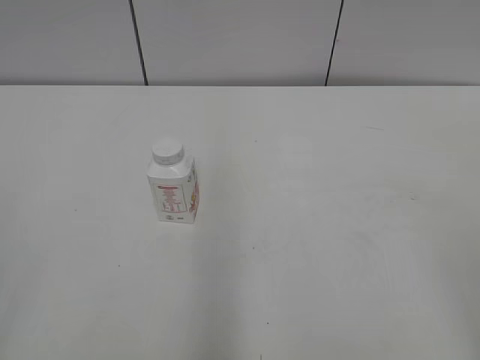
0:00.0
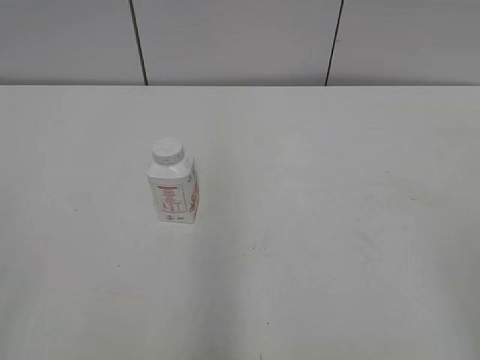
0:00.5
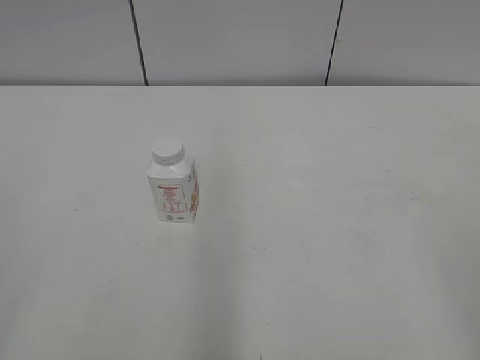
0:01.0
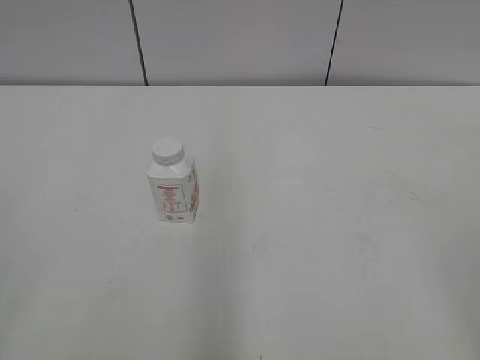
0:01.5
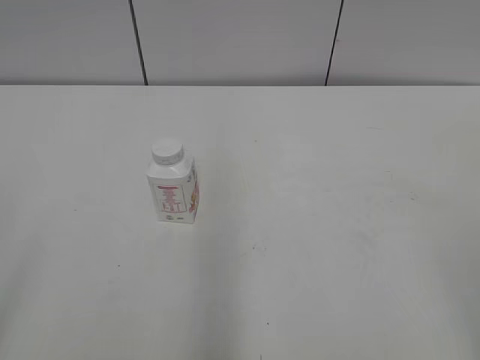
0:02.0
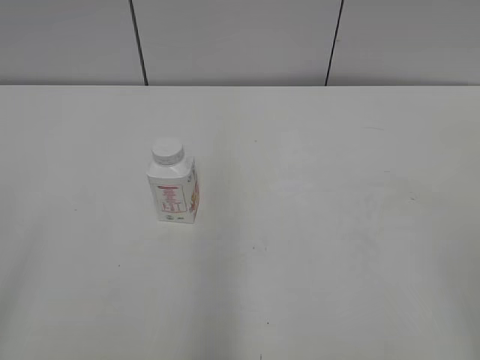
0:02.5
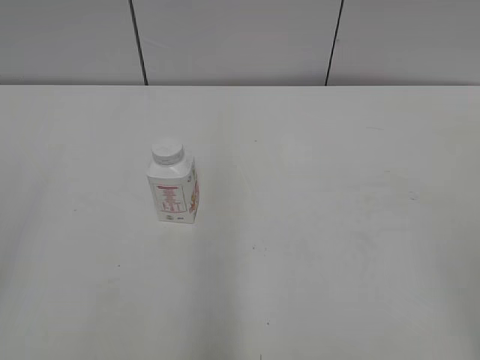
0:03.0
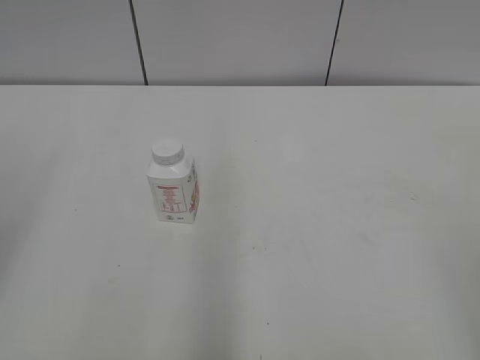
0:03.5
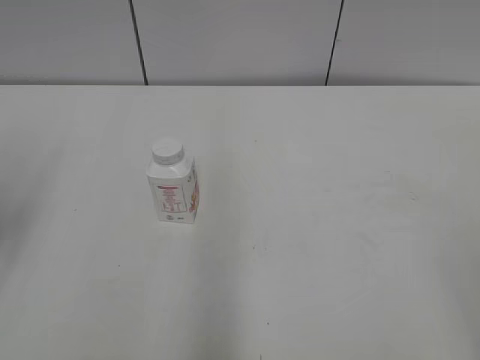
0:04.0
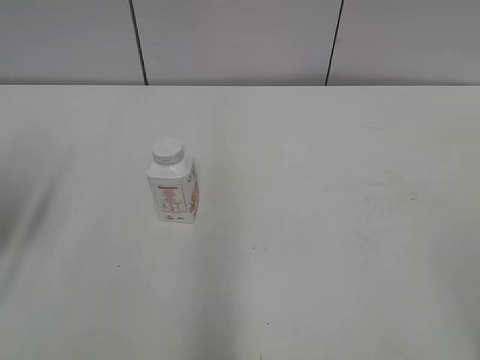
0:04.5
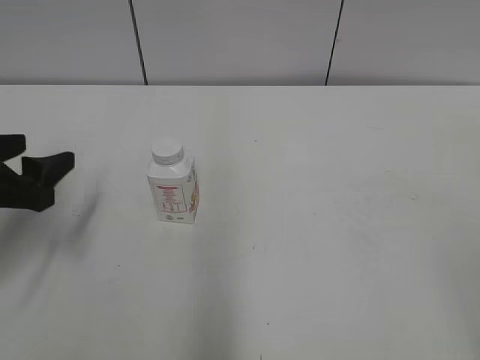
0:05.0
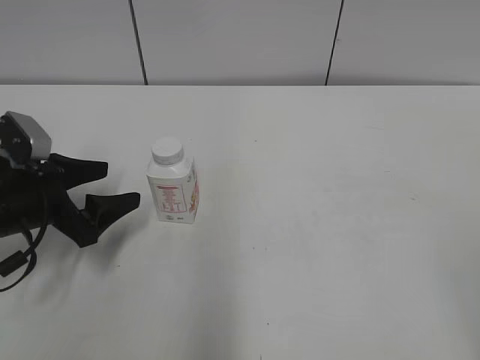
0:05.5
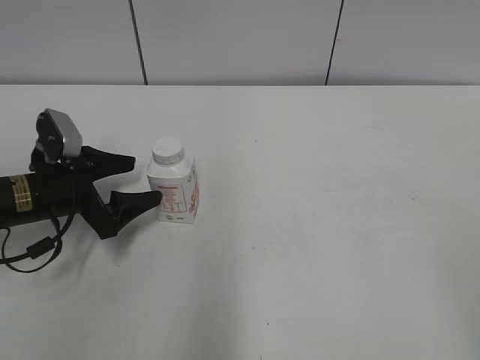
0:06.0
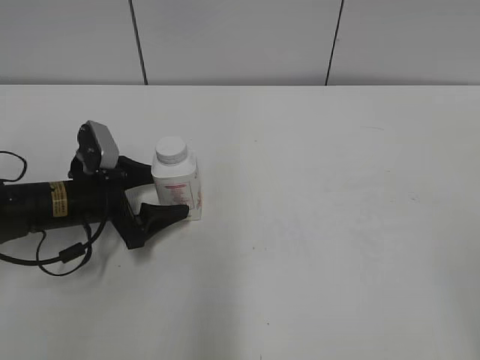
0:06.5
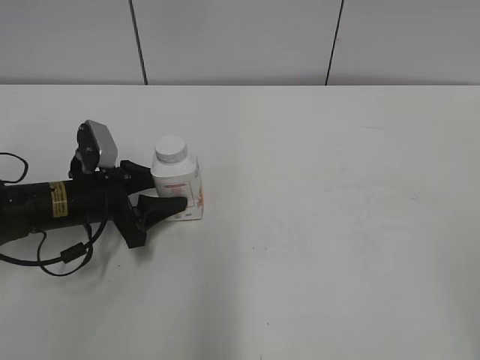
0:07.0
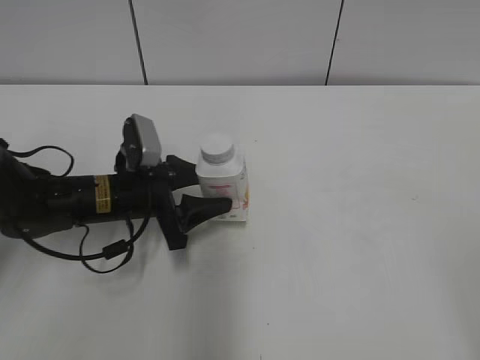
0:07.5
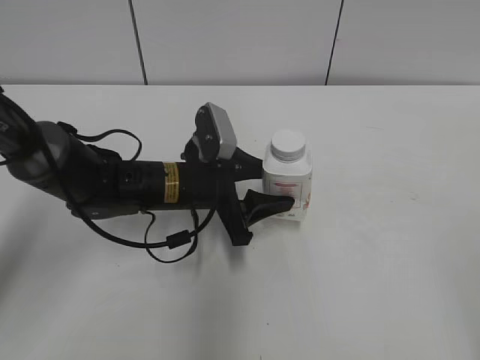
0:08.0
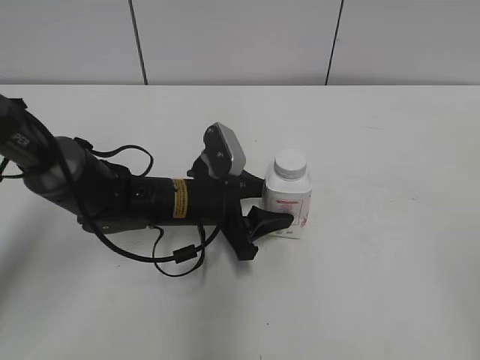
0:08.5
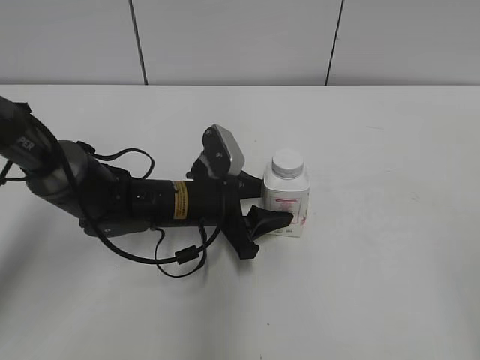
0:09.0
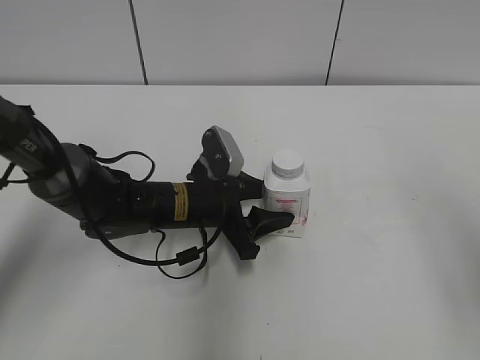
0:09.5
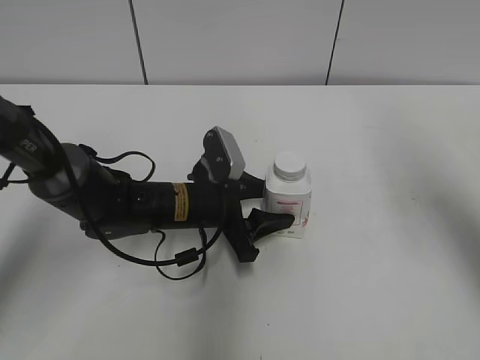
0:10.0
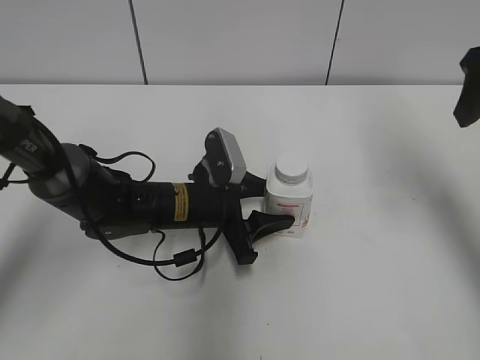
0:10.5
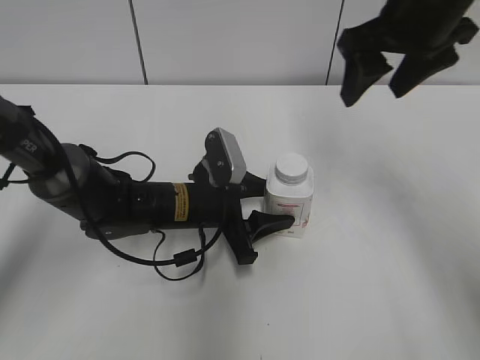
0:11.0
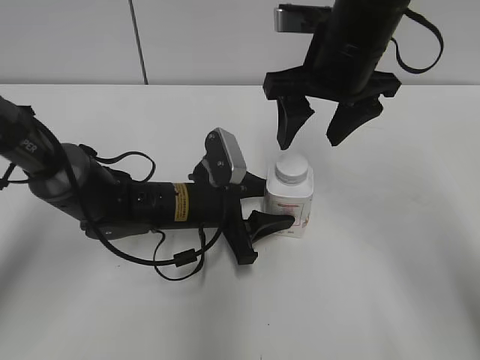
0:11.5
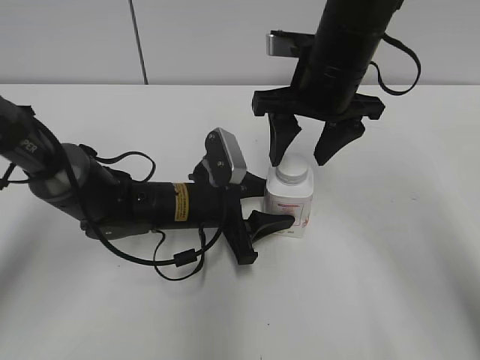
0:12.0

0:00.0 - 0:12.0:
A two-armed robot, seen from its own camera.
Step, 0:00.0 - 0:06.5: Grasp the bottle and move it to the center of the table with the left gripper.
Step, 0:07.0 - 0:09.5: Lift the bottle and move it to the center of the table with the left gripper.
0:04.0 - 0:06.0: The left gripper moves downward, forward and to the right, roughly 25 cm.
0:06.0 - 0:08.0: The left gripper goes approximately 15 cm to the right, and closes.
0:08.0 - 0:10.0: The right gripper goes about 25 cm forward.
0:10.0 - 0:12.0: The right gripper shifts some 25 cm to the left, forward and downward.

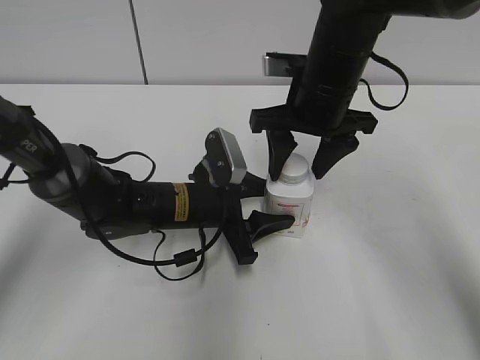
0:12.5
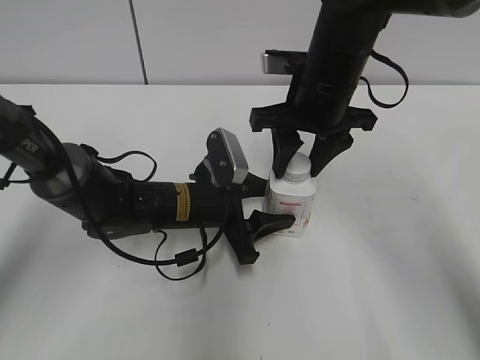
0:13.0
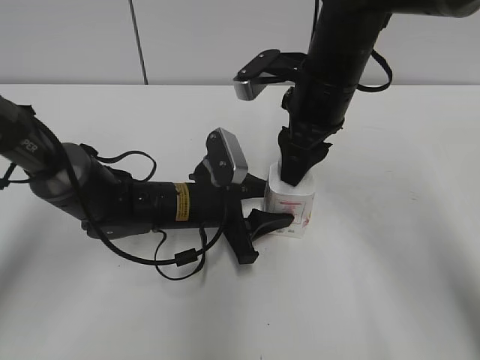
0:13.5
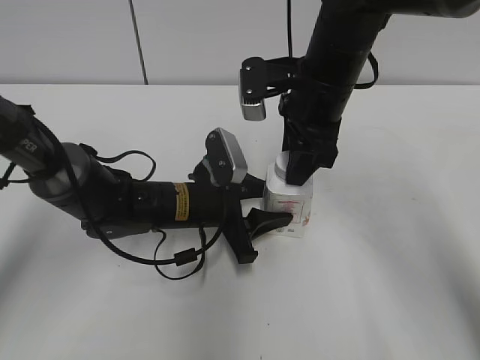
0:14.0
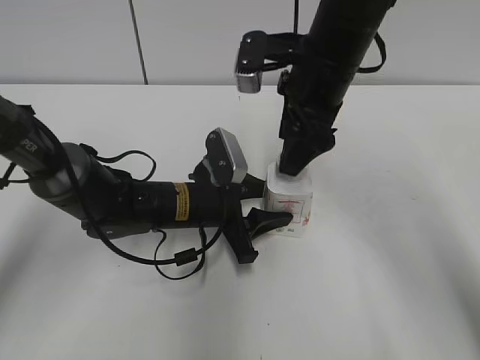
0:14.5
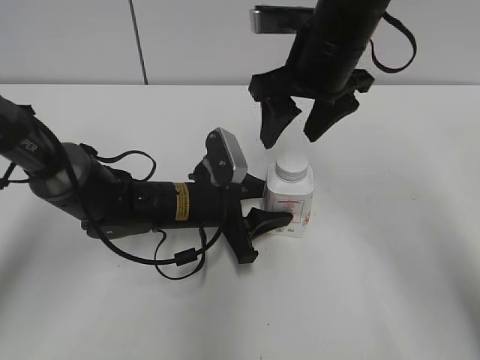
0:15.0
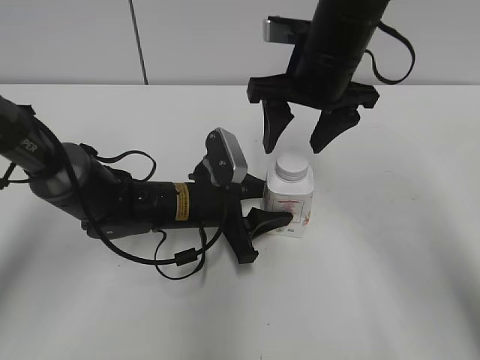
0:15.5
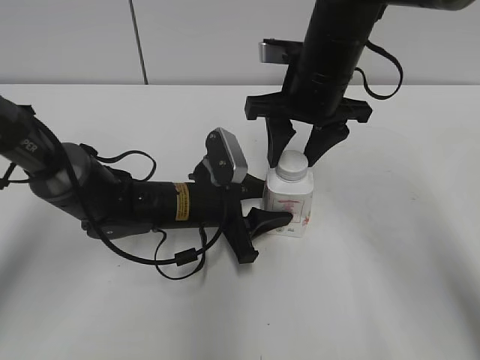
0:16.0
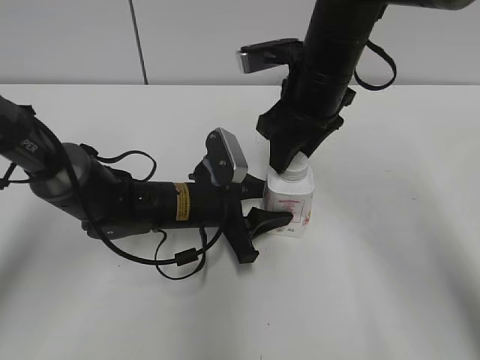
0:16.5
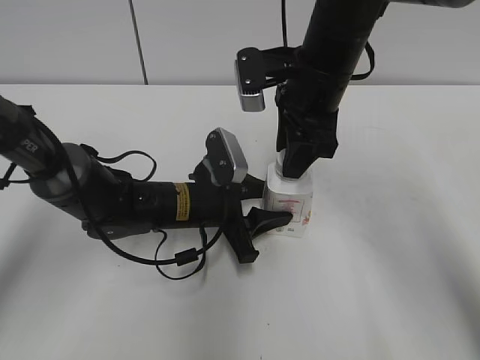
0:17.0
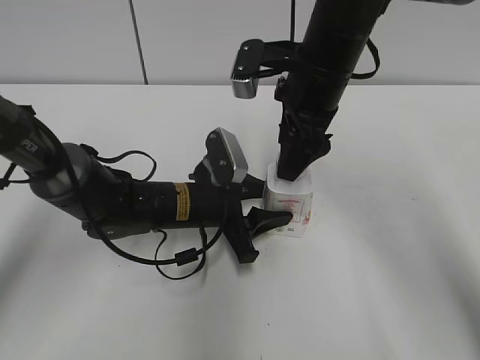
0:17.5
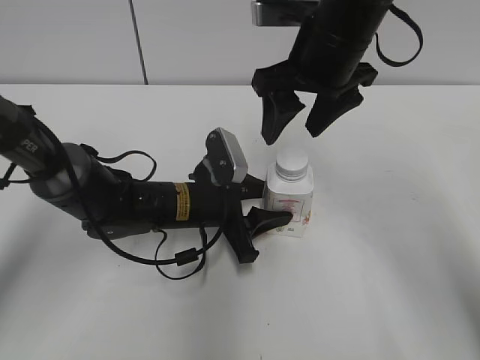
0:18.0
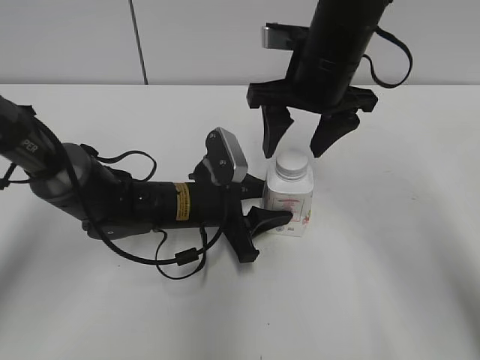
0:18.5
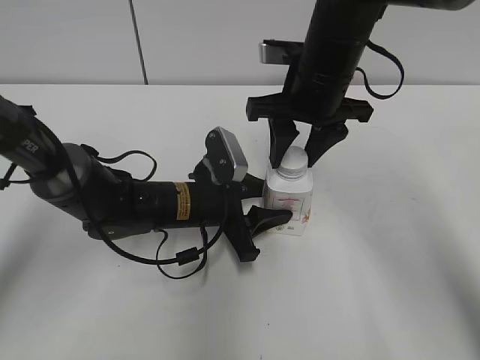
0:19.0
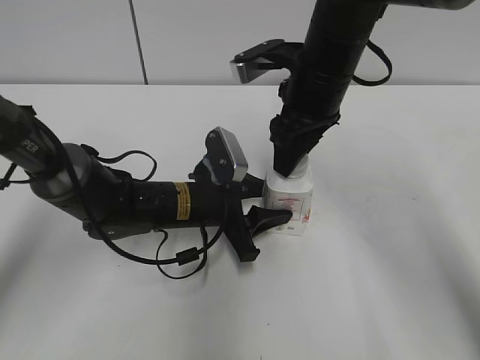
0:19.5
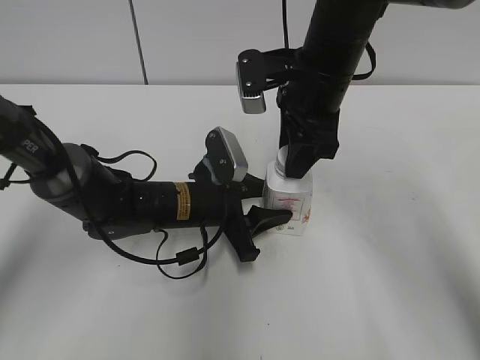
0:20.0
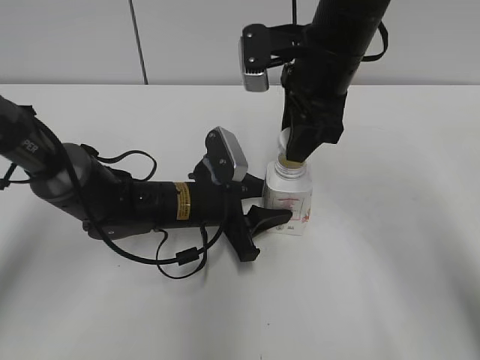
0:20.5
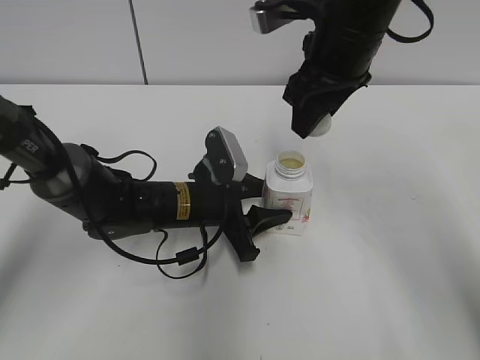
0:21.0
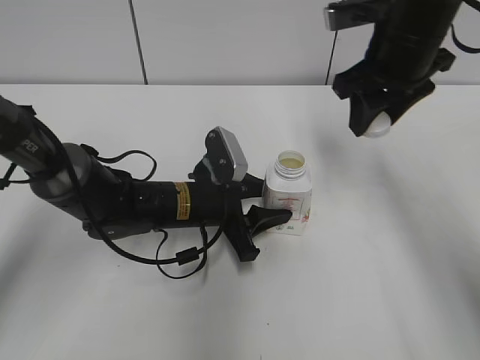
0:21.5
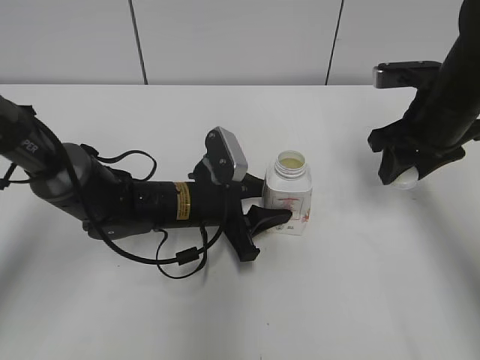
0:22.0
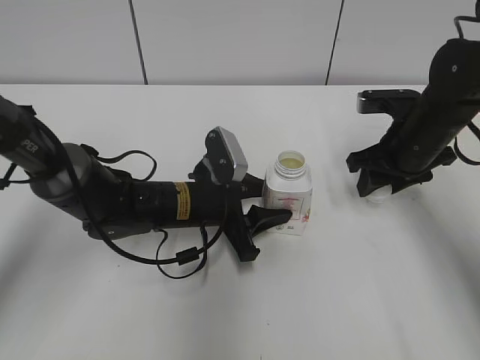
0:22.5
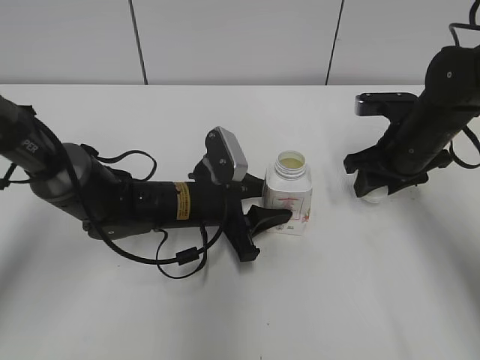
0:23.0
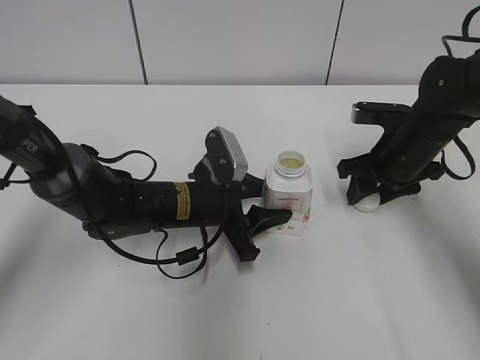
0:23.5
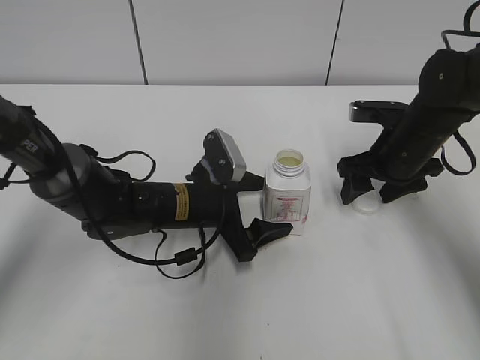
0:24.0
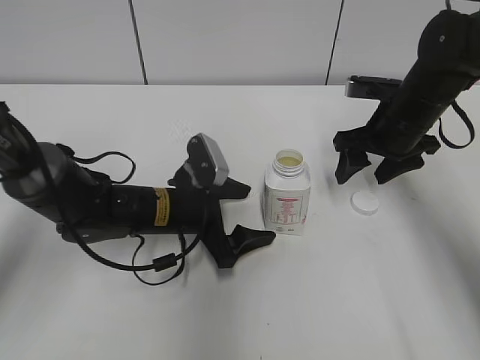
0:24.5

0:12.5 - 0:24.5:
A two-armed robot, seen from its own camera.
Step, 0:12.5 - 0:20.5: Unscrew the bottle cap with the right gripper while holding the bottle with the left gripper.
Step, 0:21.0 - 0:23.5: Place the bottle cap on the table with the right gripper.
0:12.5 - 0:14.5: The right gripper closes, then opens again.
0:14.5 - 0:16.5: The right gripper closes its fingers.
0:16.5 - 0:18.5: The right gripper opens its fingers.
0:18.5 - 0:20.5: The right gripper closes up.
0:20.5 - 0:22.5: The right gripper goes approximately 15 cm to the right and downward.
0:22.5 - 0:24.5: The right gripper opens, while the left gripper opens its fingers.

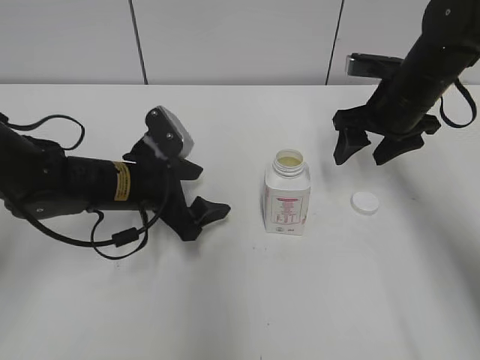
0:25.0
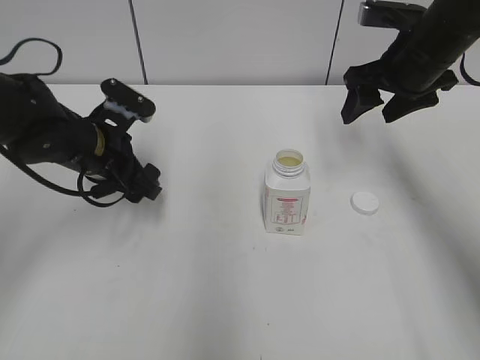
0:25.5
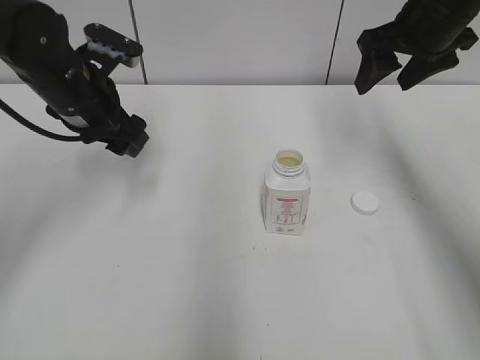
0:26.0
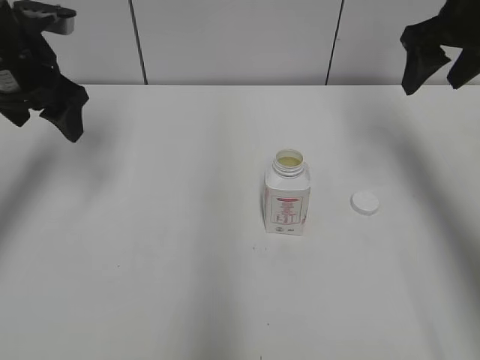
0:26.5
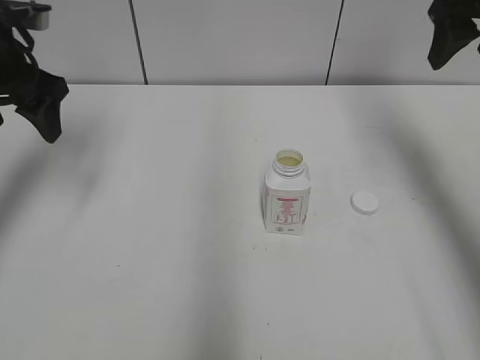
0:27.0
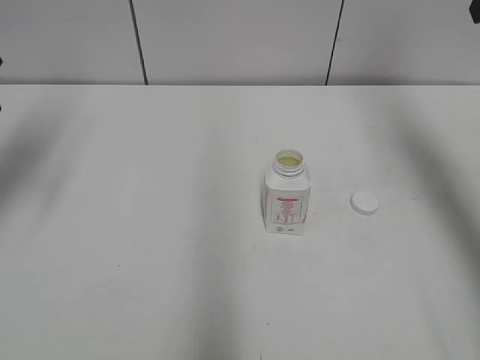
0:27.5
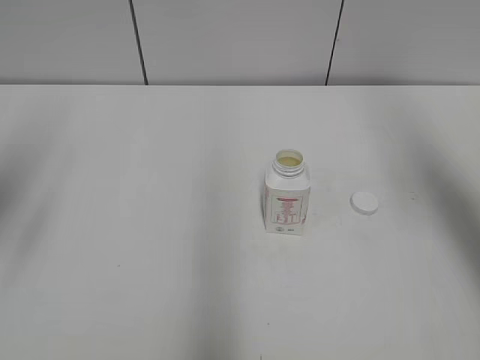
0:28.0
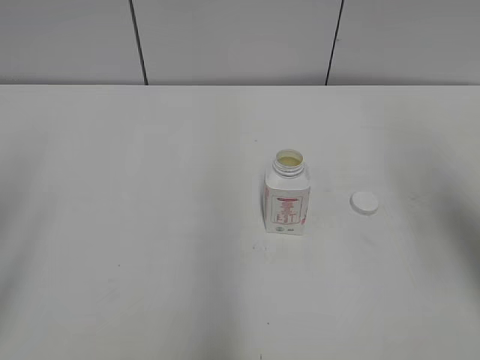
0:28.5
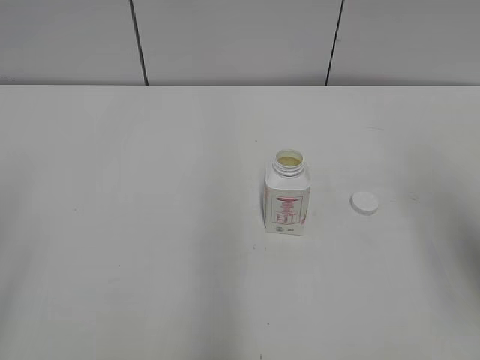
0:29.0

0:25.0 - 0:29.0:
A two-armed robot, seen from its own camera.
0:25.0 - 0:27.0: The left gripper is displaced upward and to the left by roughly 20 cm. Meanwhile the right gripper heads upward, covering some 15 cm.
0:27.0 - 0:29.0: Both grippers move backward, some 25 cm.
